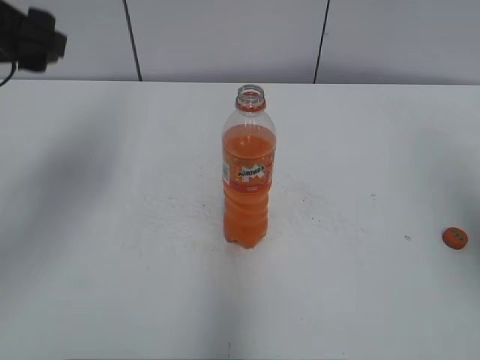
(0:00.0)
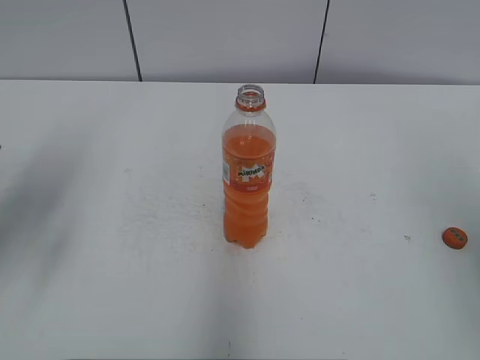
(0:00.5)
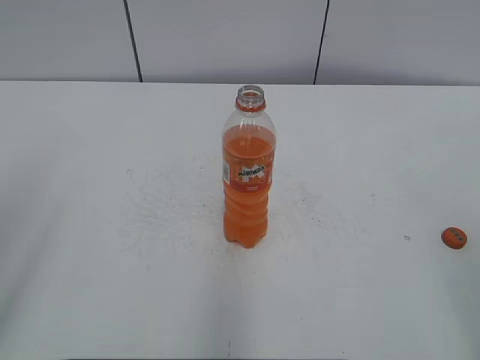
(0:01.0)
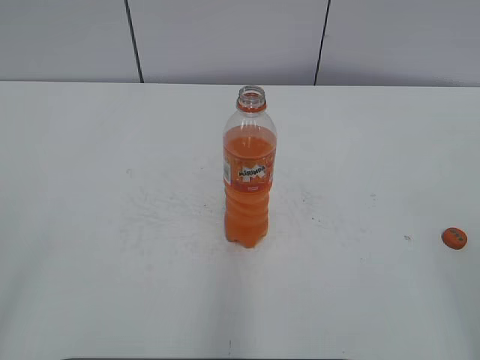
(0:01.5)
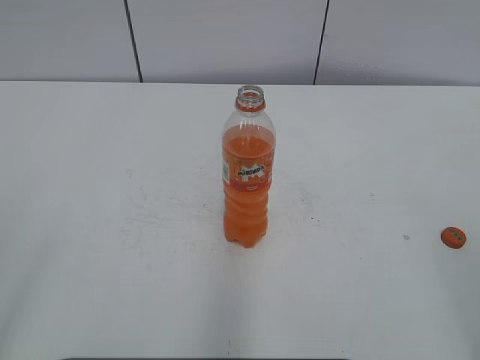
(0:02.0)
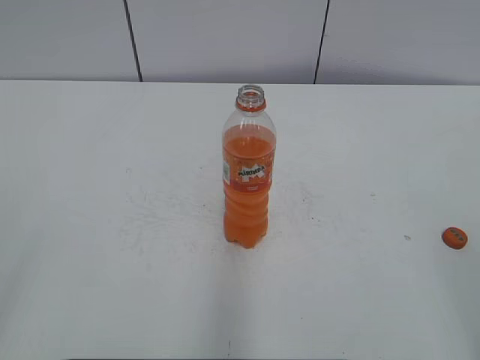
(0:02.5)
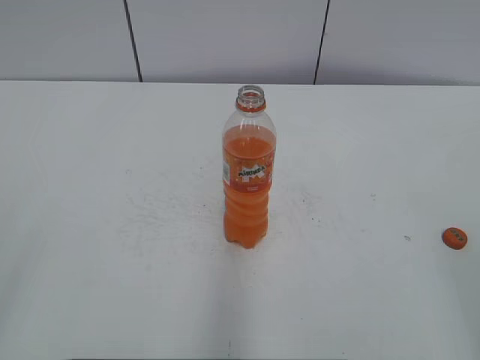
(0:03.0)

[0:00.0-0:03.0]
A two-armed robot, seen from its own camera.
0:00.0 to 0:01.5: The left gripper shifts approximately 30 cm backward; the right gripper shifts approximately 15 cm backward.

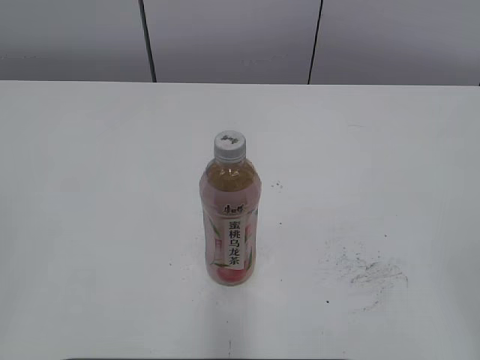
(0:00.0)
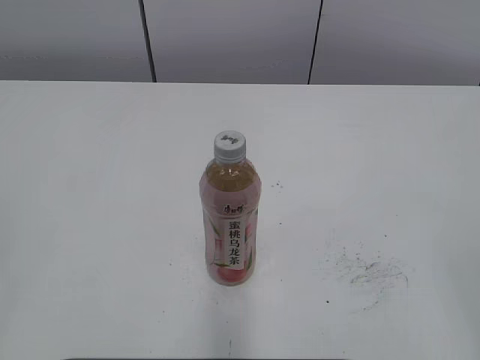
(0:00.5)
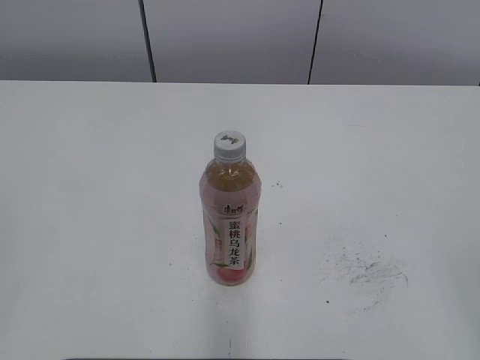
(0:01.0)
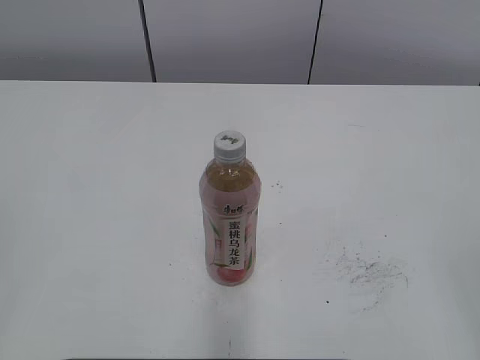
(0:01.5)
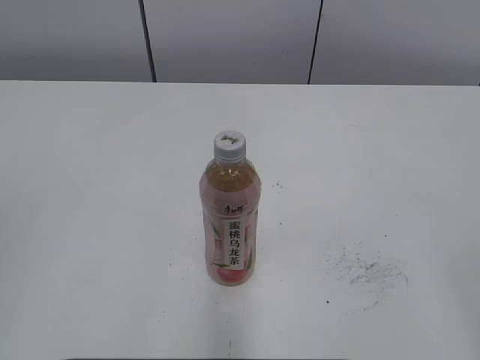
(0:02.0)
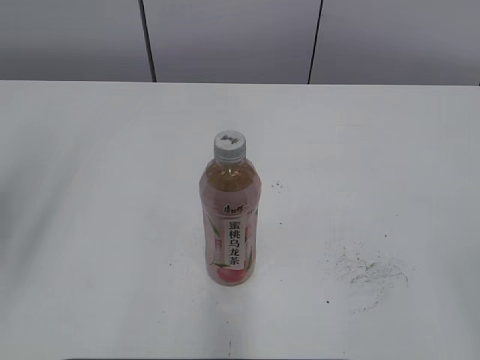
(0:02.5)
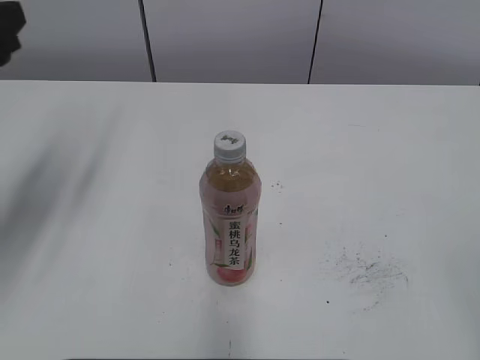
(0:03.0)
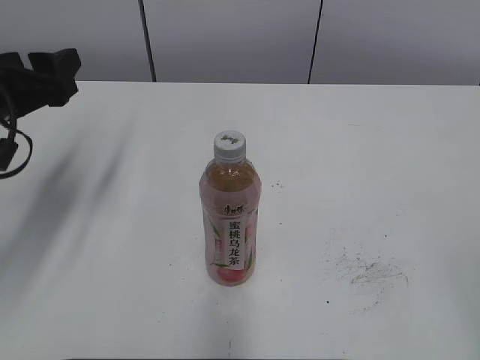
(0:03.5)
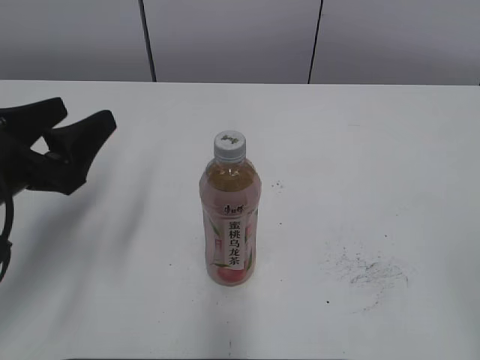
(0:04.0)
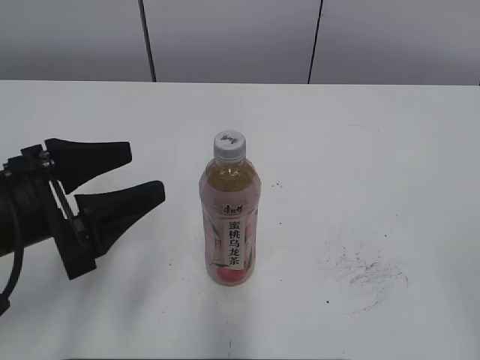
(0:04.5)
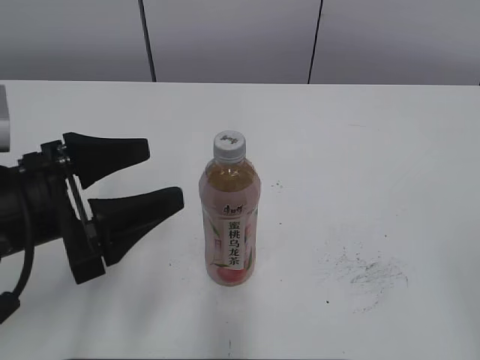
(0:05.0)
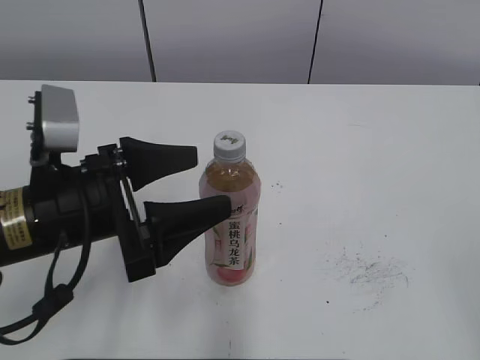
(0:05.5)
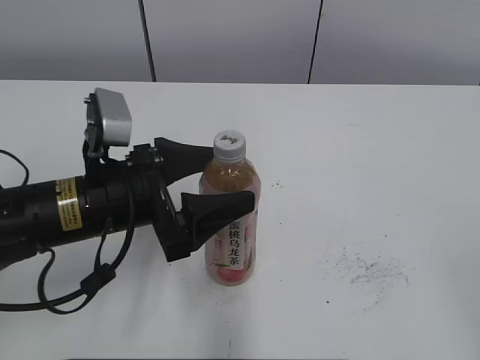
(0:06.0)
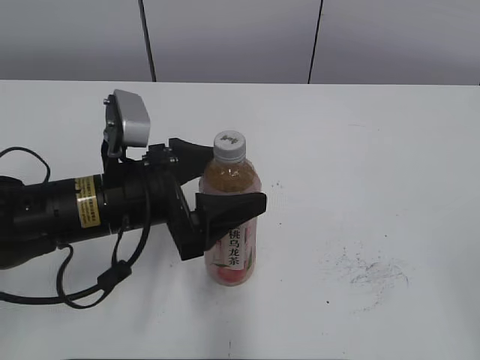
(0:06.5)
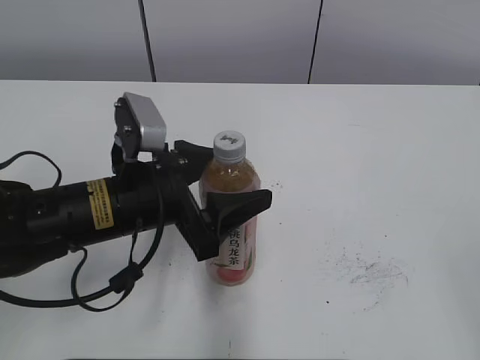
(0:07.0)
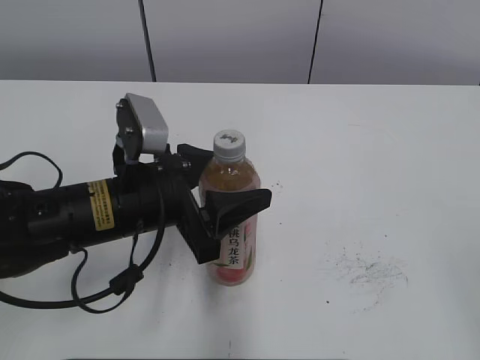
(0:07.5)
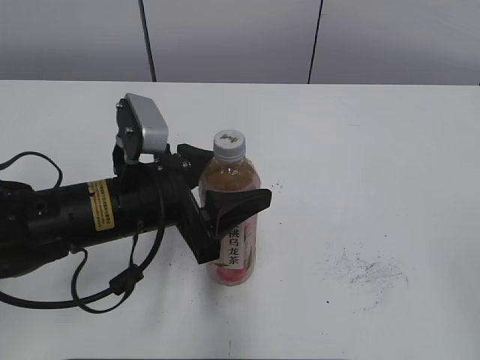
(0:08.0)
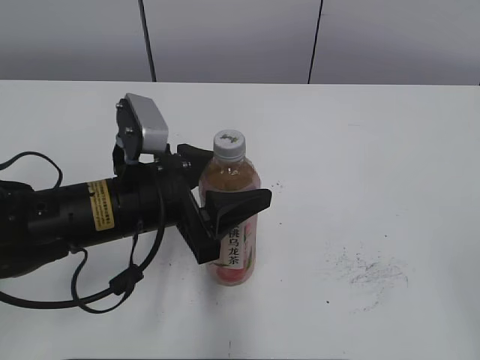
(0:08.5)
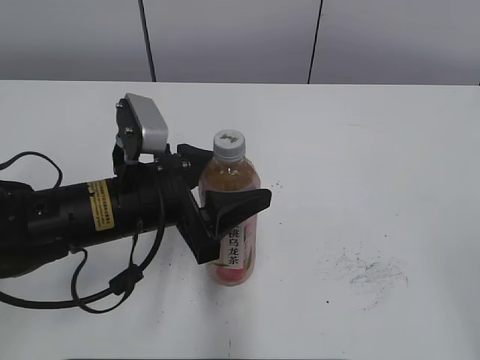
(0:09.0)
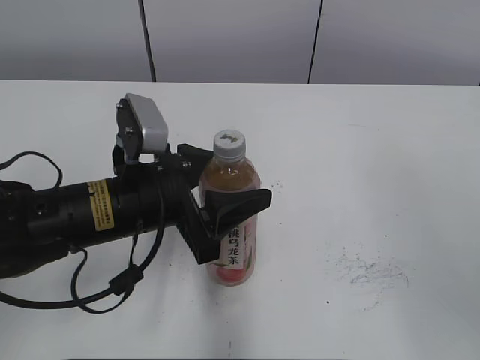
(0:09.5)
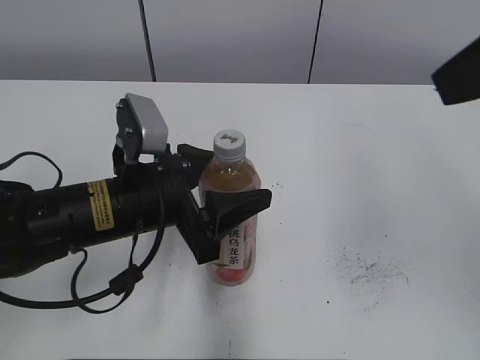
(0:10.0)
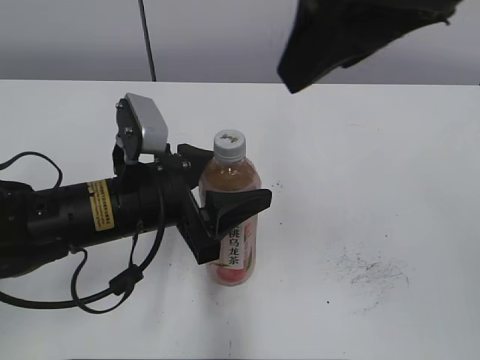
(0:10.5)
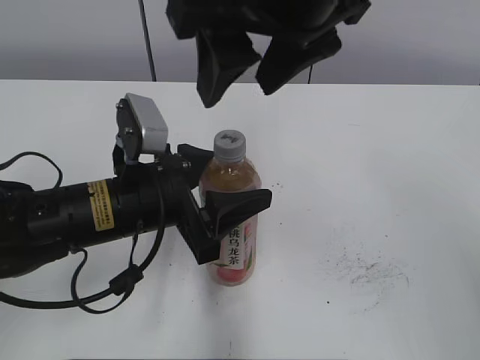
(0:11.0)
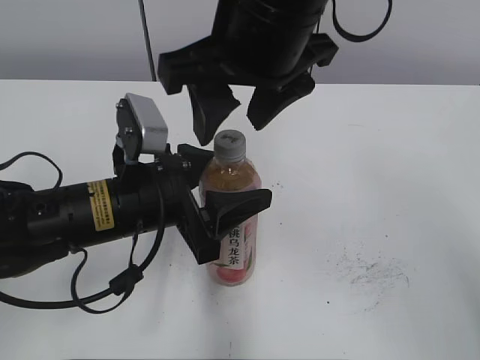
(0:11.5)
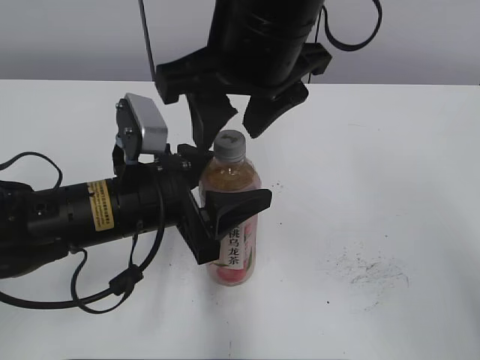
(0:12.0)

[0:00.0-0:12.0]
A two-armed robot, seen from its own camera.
Step, 0:00.0 to 0:07.0: Grab the Peach Oolong Tea with the left hand.
0:02.0 to 0:04.0: The left gripper shifts approximately 25 cm forward and downward, and opens up.
0:04.0 to 0:06.0: The left gripper shifts roughly 10 cm to the right.
0:06.0 to 0:08.0: The left gripper closes up.
0:08.0 to 0:10.0: The right gripper travels forward, upward and to the left by approximately 25 cm.
0:10.0 to 0:12.0: The right gripper is displaced to the left, forward and downward by about 20 cm.

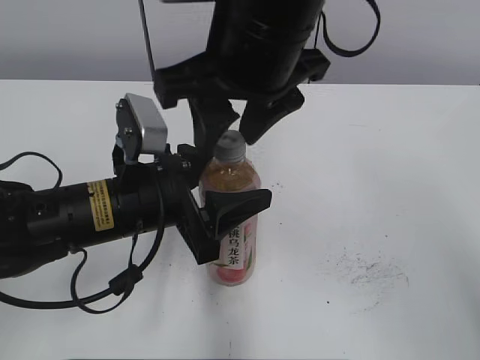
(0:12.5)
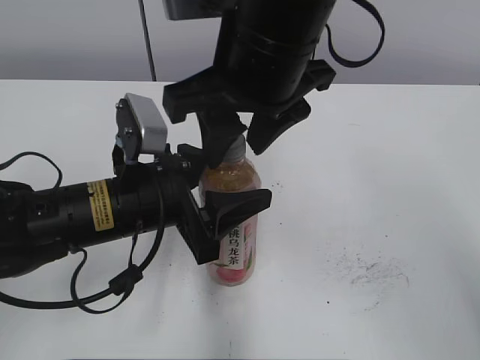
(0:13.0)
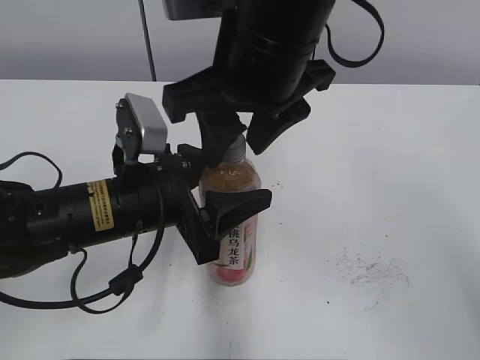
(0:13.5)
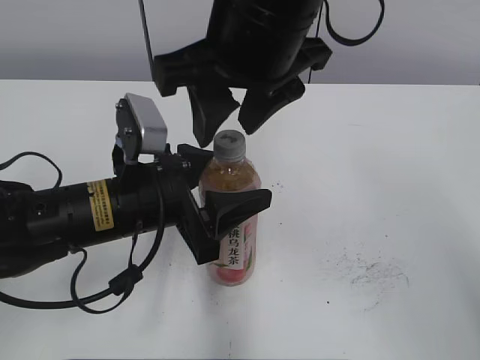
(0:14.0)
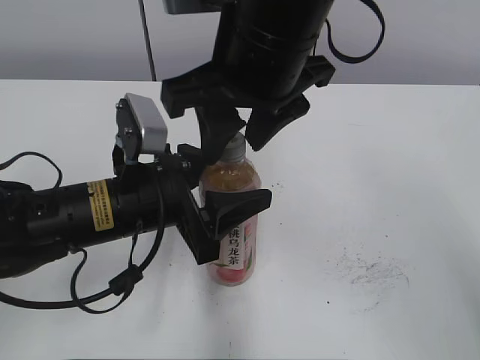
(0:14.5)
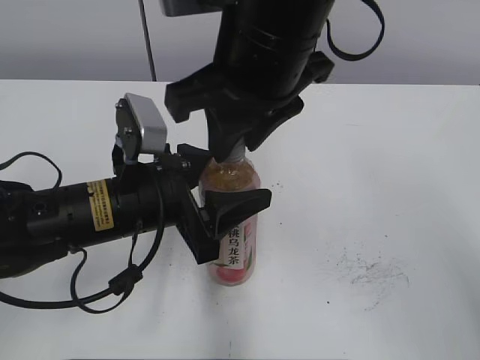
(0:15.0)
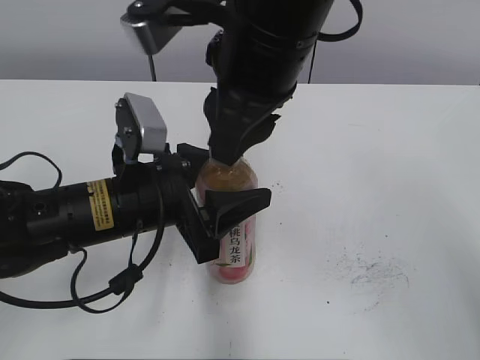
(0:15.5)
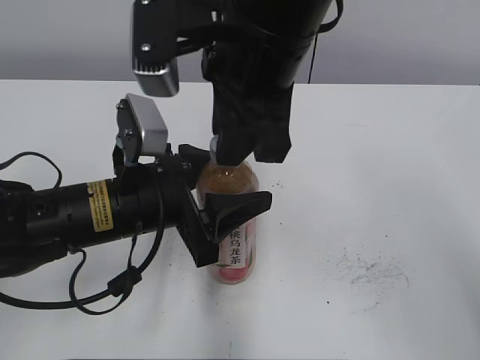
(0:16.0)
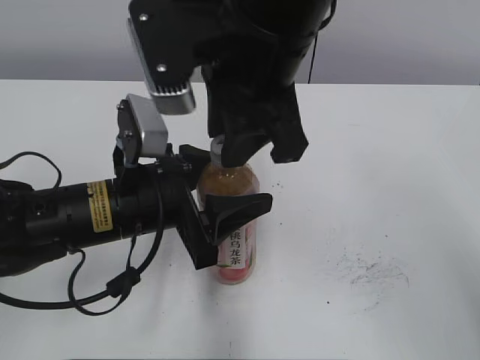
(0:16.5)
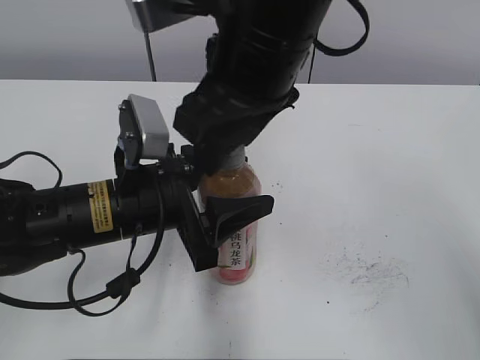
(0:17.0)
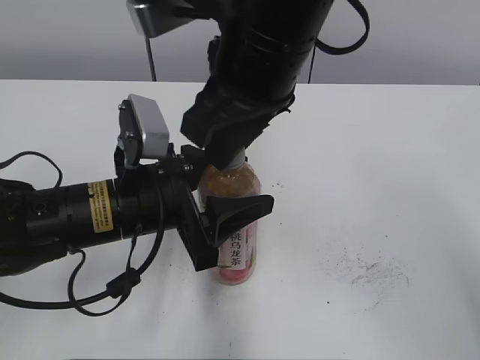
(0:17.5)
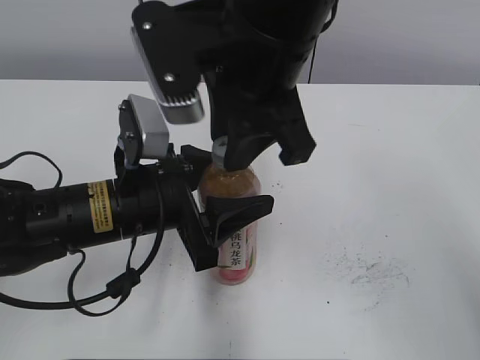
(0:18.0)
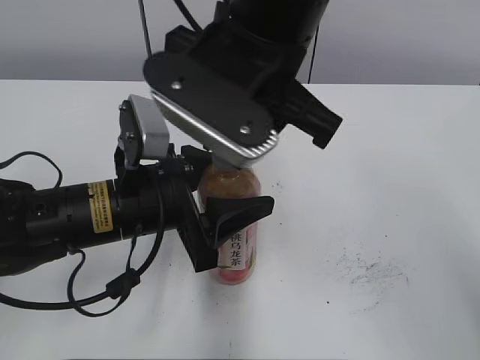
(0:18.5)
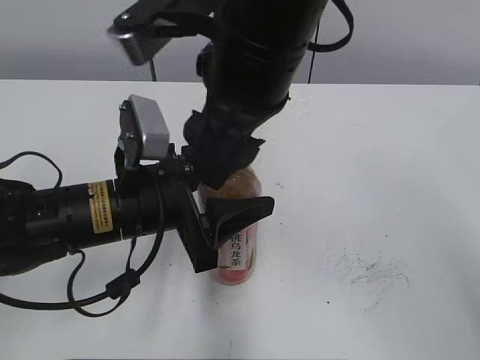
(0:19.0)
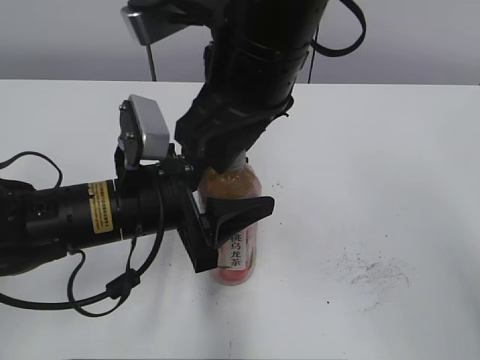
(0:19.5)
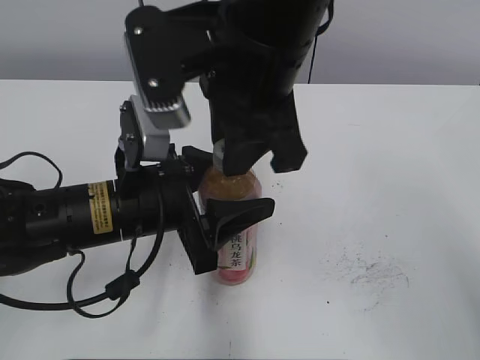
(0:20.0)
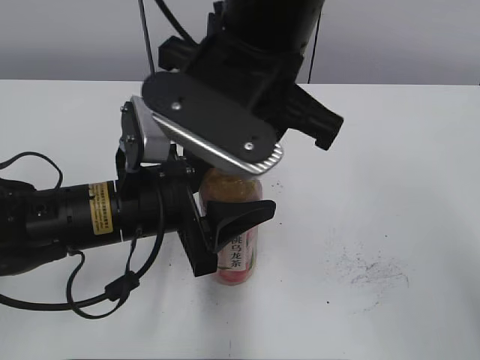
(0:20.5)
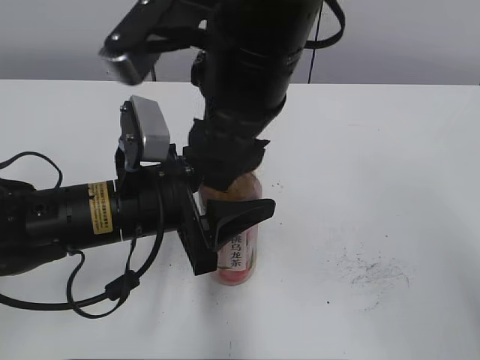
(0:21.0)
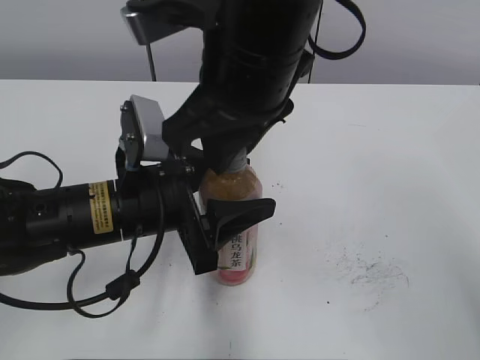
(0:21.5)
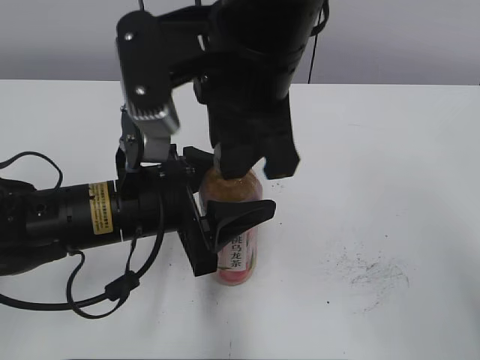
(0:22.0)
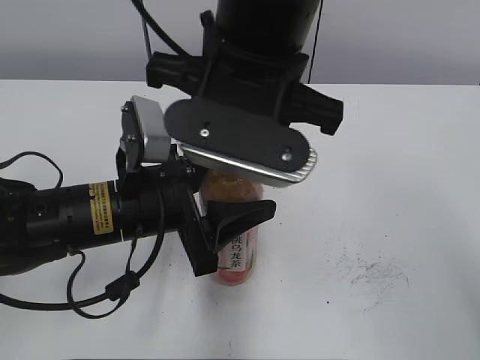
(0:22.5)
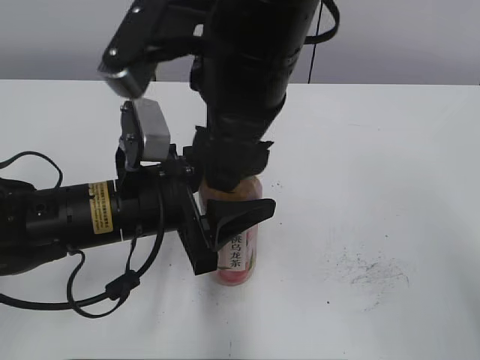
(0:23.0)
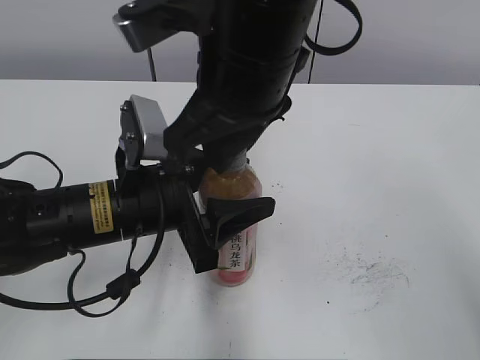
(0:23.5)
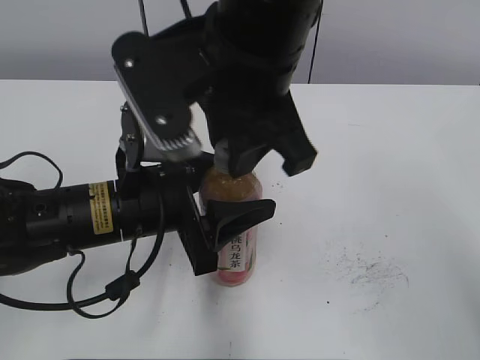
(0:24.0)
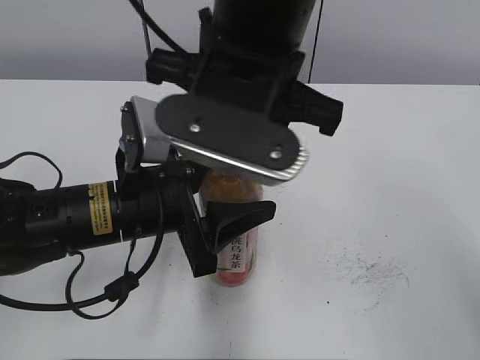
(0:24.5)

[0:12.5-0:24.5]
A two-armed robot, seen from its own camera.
0:12.5 to 0:14.5: Both grippers stay put.
0:14.5 to 0:16.5: The right gripper closes its fingers.
0:16.5 to 0:18.5: The right gripper opens and closes again.
0:18.5 to 0:20.5: The right gripper opens and closes again.
0:20.5 to 0:22.5: The right gripper opens and closes again.
0:22.5 to 0:24.5: The right gripper opens and closes again.
